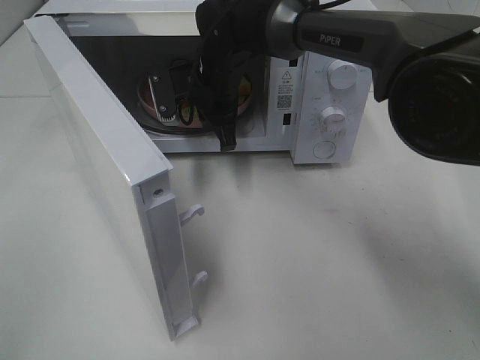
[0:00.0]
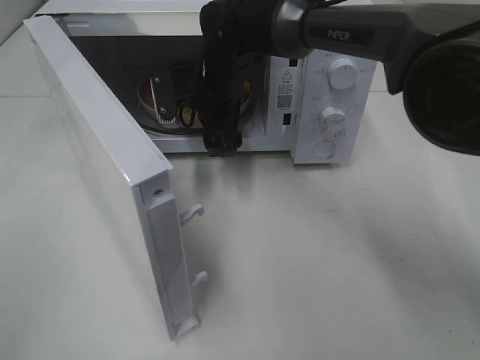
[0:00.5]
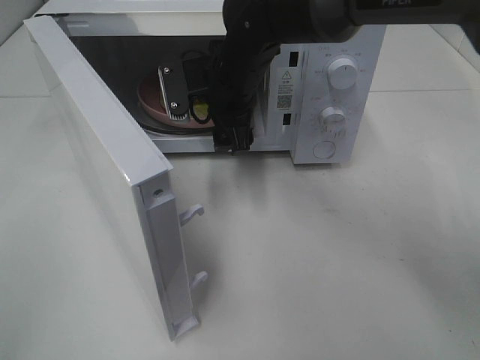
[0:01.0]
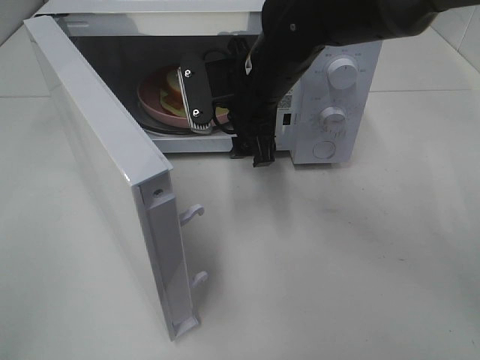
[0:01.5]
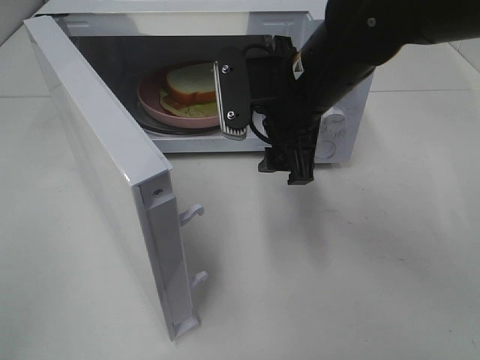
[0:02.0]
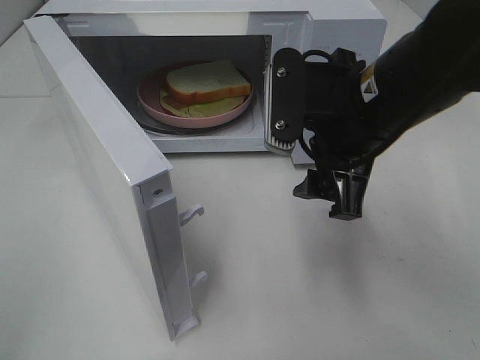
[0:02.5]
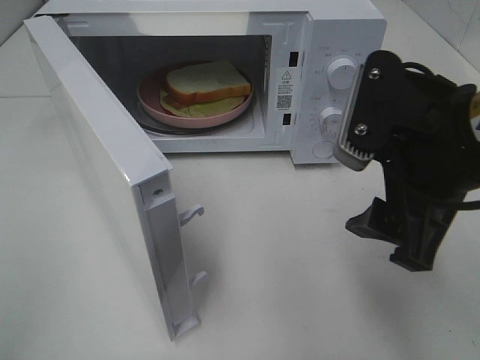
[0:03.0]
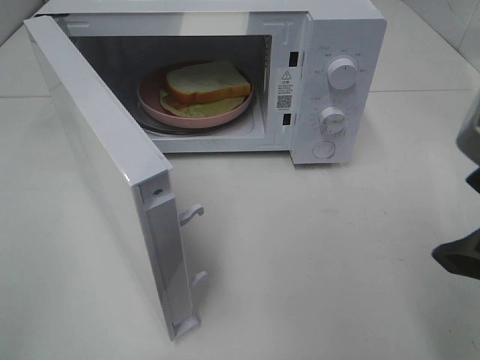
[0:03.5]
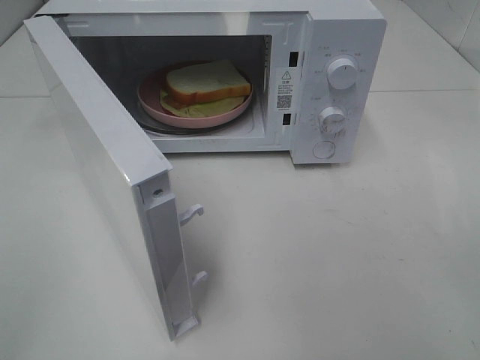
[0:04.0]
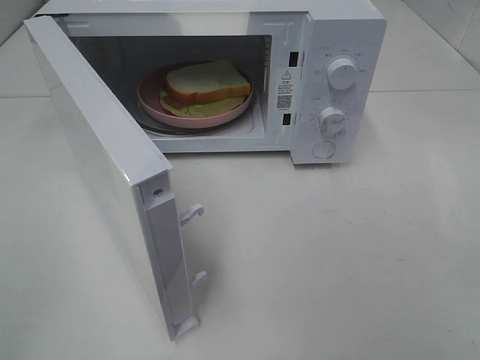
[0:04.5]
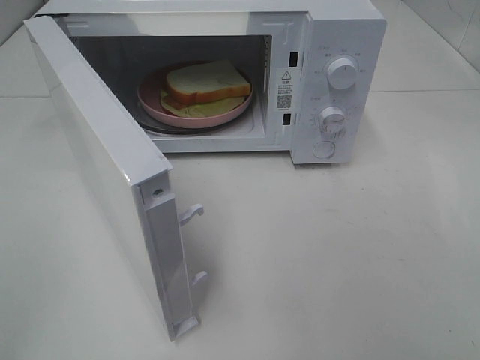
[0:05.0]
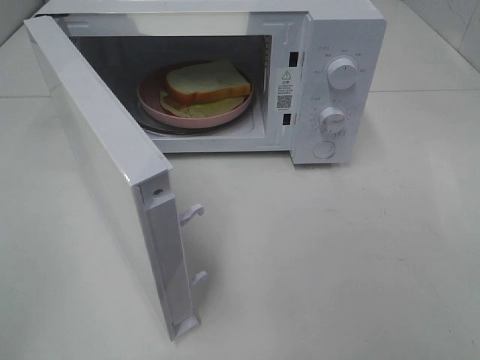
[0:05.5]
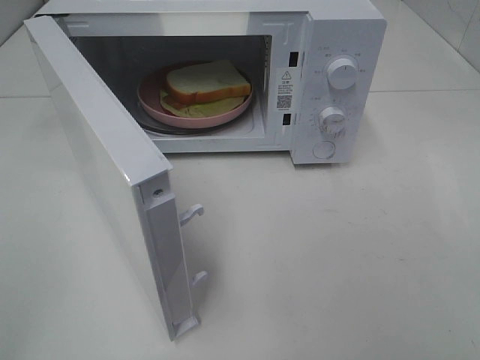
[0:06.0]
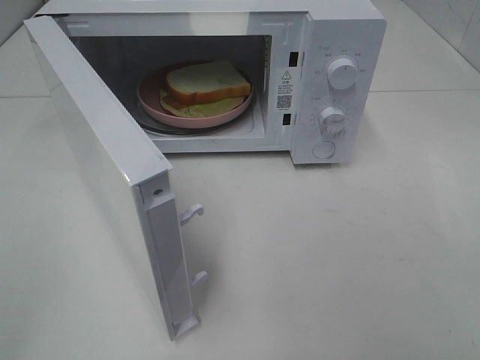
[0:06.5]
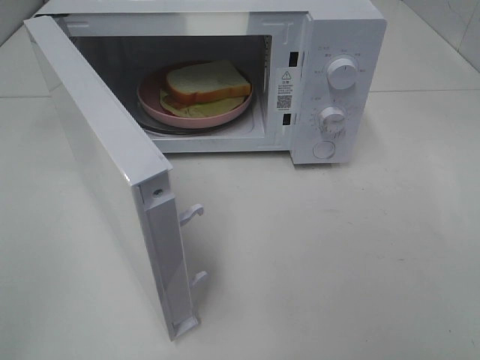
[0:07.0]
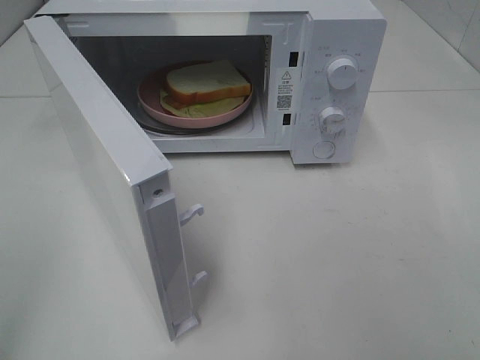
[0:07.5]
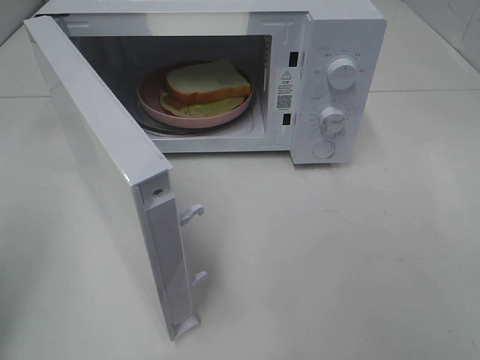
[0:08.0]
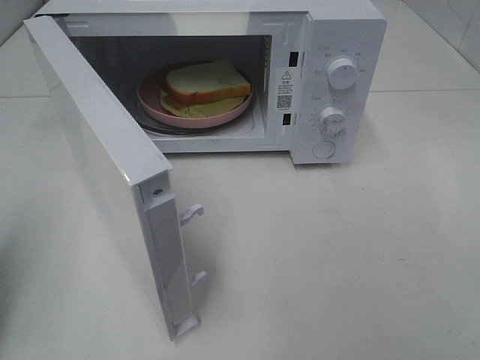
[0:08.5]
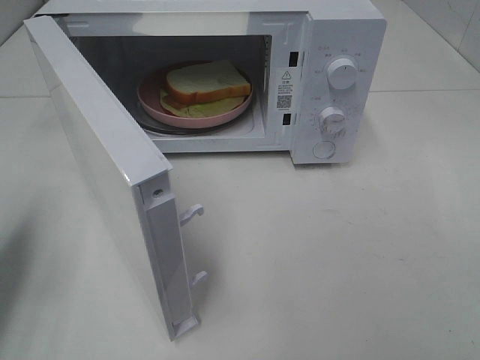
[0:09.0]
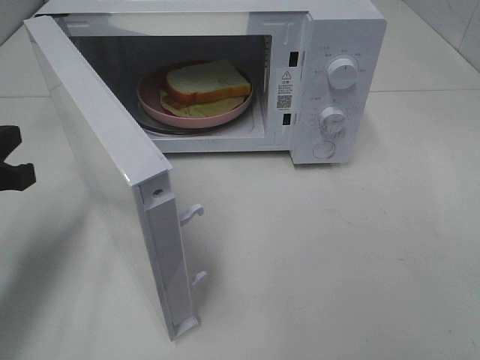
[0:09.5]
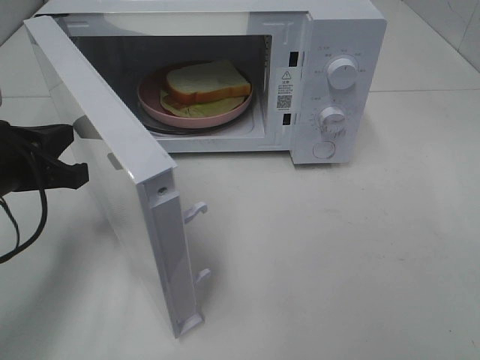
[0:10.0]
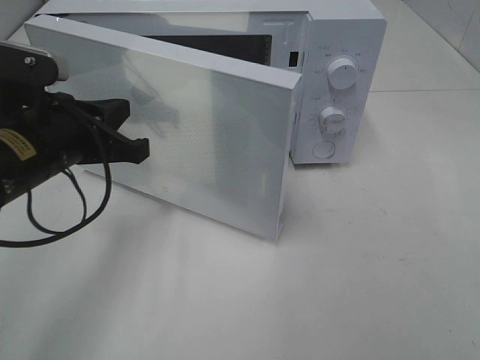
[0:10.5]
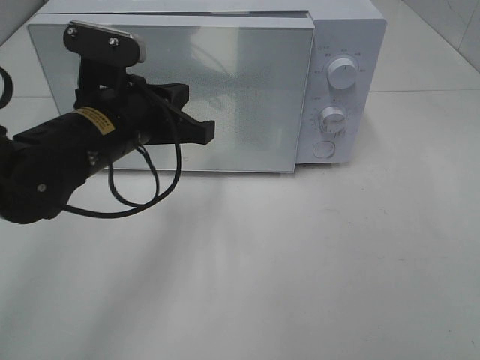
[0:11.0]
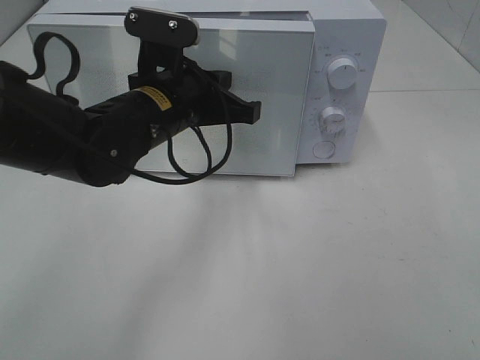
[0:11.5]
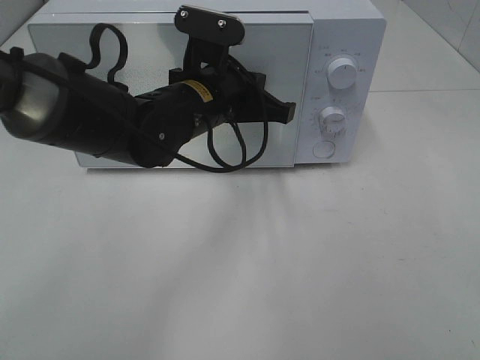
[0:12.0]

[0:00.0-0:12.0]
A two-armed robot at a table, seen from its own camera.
Task of the whole recording: Heat Sandwich.
0:00.0 to 0:02.0: The right gripper travels backward, to the right and upward by about 20 cm, and opens its fingers.
0:02.0 to 0:04.0: The right gripper is displaced backward and to the right by approximately 30 cm.
0:04.0 to 0:06.0: The right gripper goes approximately 10 cm backward.
0:08.0 to 0:10.0: The left gripper heads forward, downward and to the right, covering about 20 cm.
0:10.0 to 0:12.0: The left gripper goes approximately 25 cm to the right and forward.

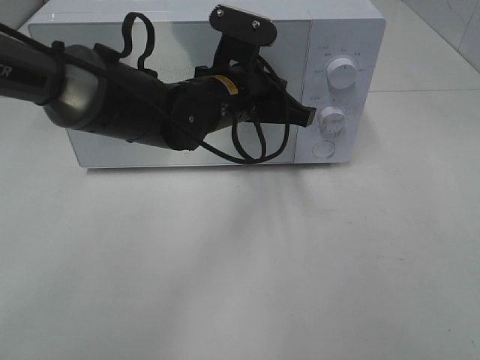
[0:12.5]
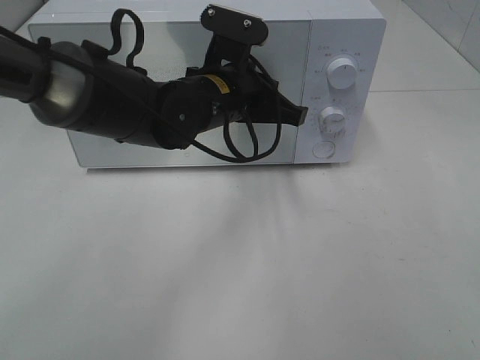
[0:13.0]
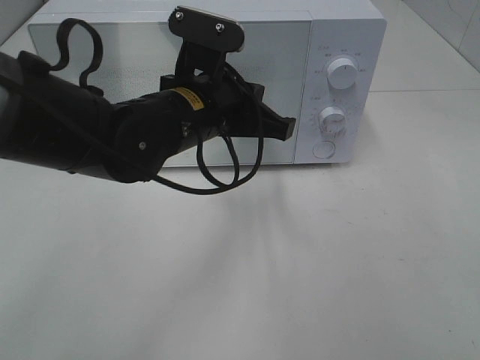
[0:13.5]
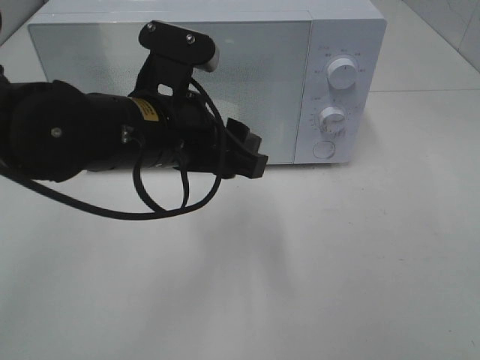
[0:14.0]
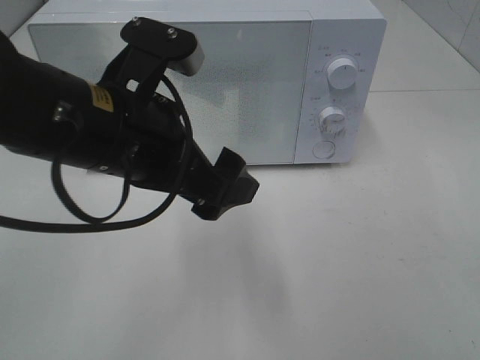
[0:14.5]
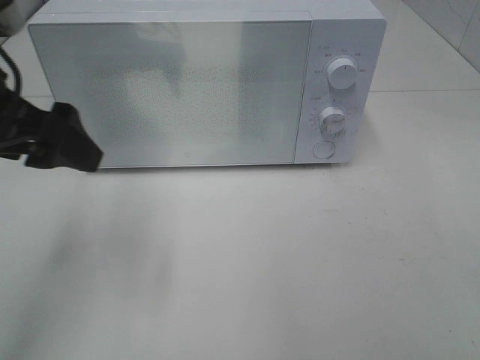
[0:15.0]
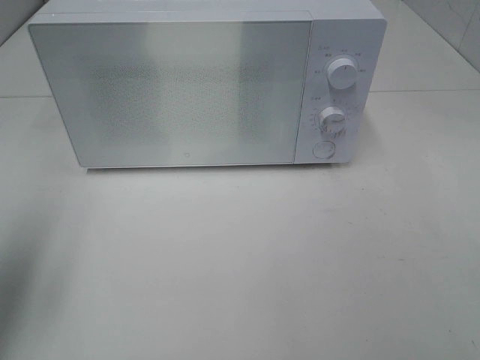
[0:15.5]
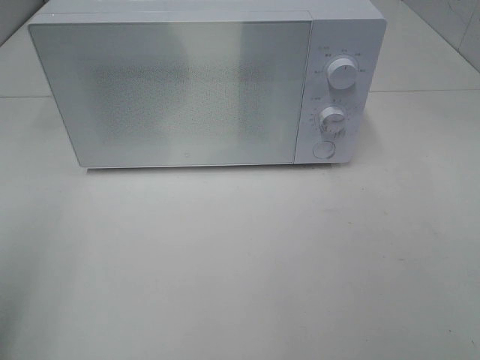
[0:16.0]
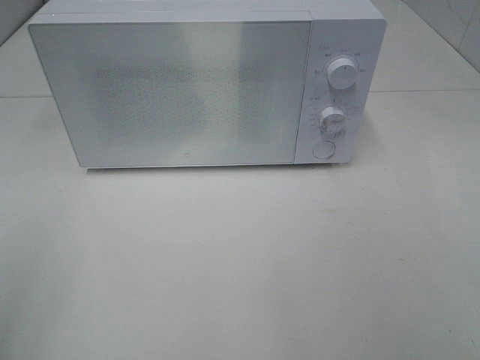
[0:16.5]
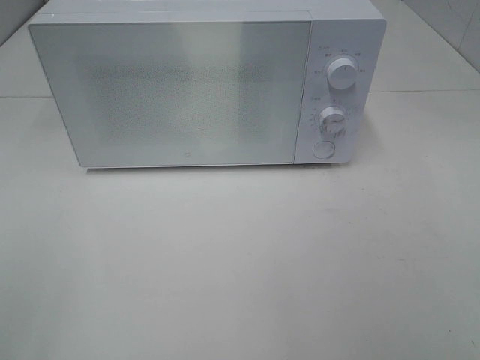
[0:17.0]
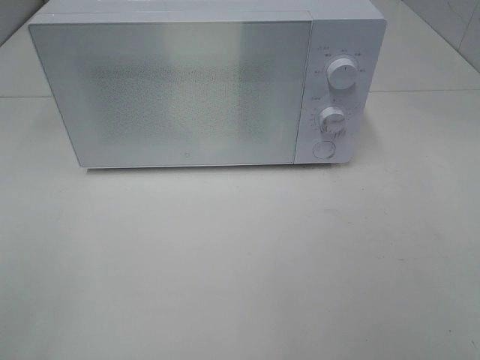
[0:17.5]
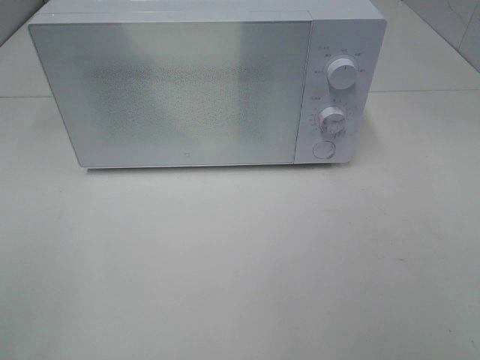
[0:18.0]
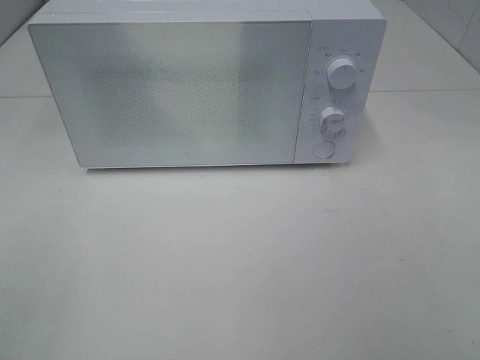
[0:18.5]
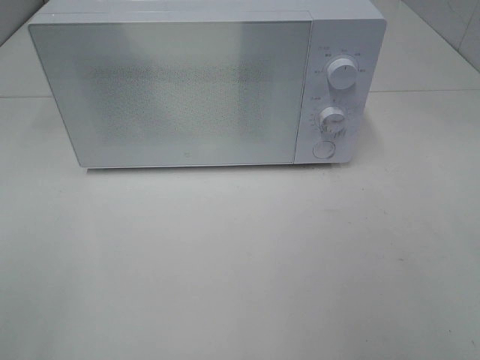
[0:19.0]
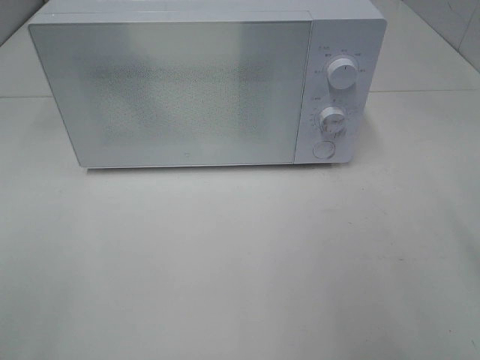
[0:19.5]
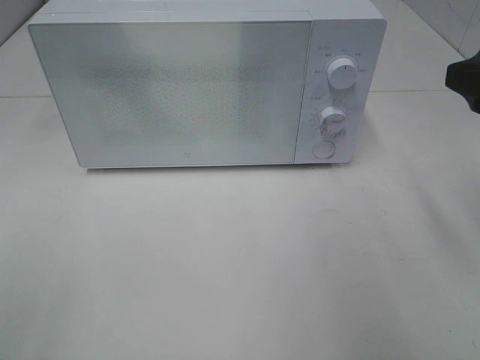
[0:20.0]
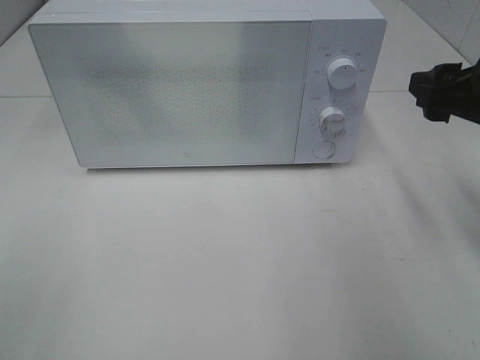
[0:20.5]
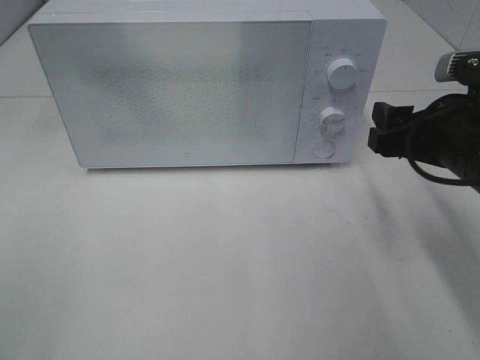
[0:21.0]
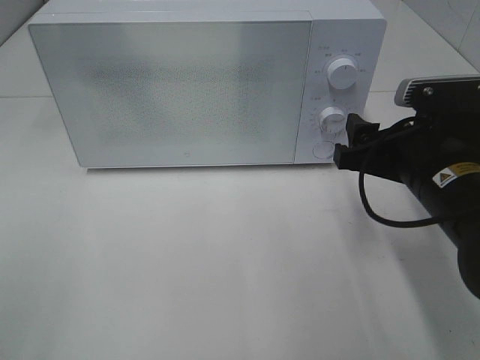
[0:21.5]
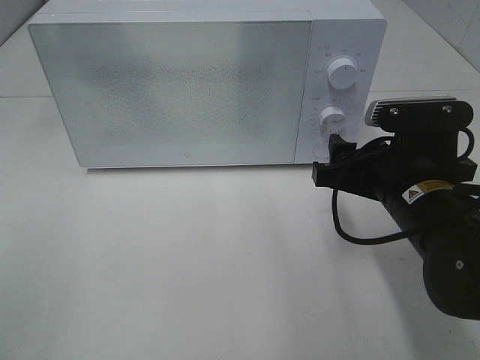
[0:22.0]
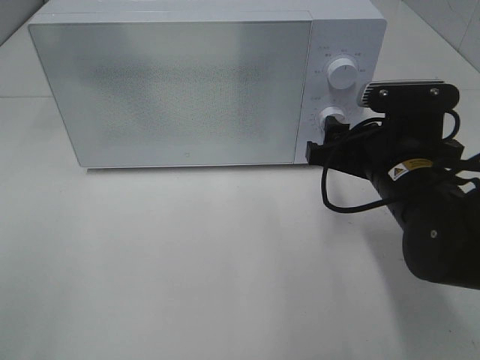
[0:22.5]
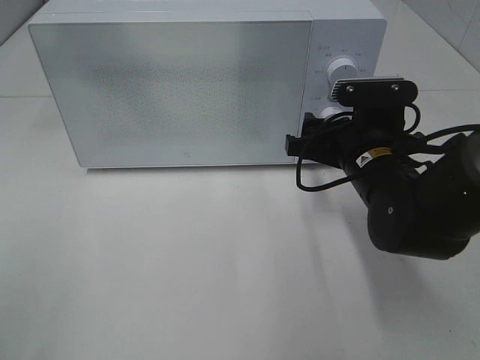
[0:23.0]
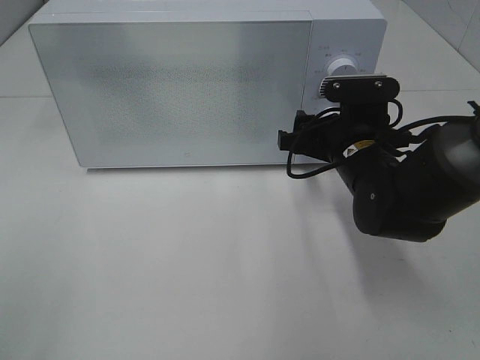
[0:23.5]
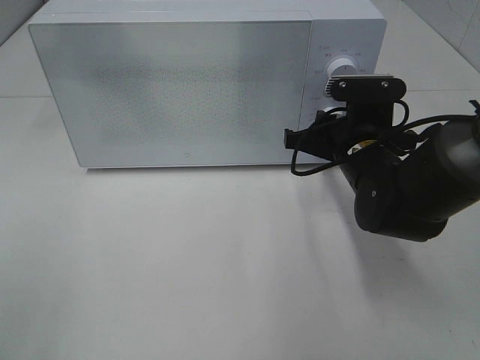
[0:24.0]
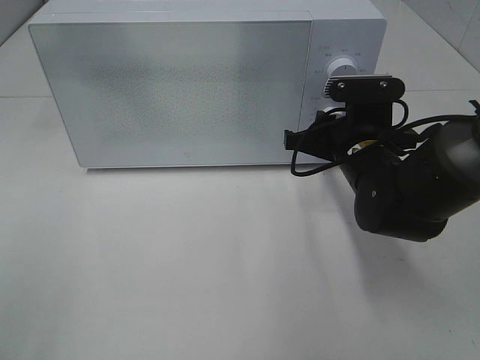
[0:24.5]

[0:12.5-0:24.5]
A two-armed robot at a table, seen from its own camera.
Task of the whole recording: Heat Sandwich.
0:12.5 to 0:14.5: The left gripper is displaced backward, to the left and upward by about 20 cm, and opens up.
0:14.5 to 0:16.5: The left gripper goes about 30 cm to the left and backward.
0:18.5 to 0:20.5: The right gripper travels forward by approximately 25 cm.
0:20.5 to 0:22.5: The right gripper is displaced to the left and downward by roughly 15 cm.
0:22.5 to 0:24.5: The right gripper travels forward by about 5 cm, and closes its fingers.

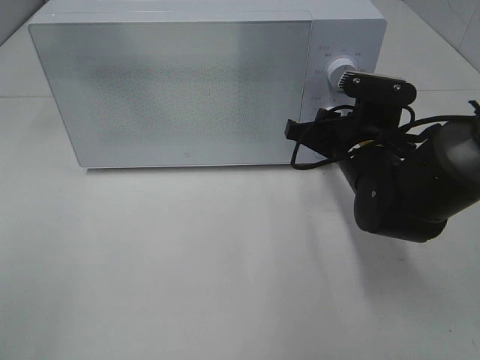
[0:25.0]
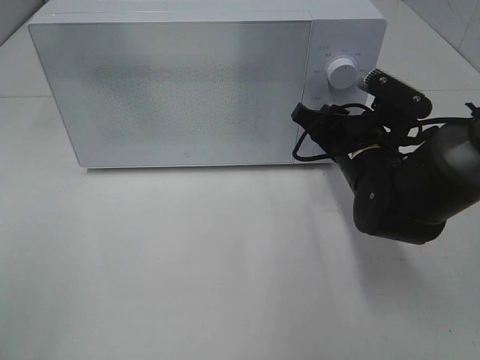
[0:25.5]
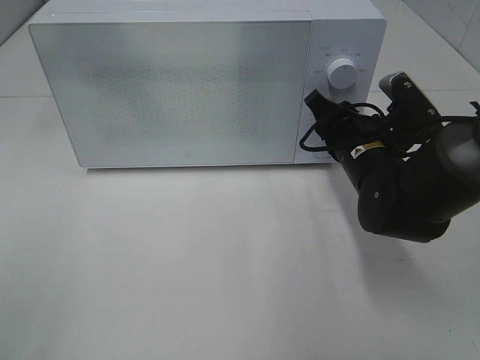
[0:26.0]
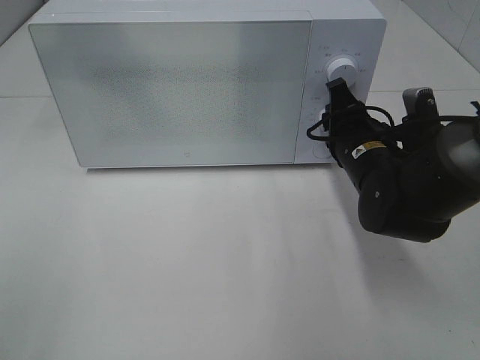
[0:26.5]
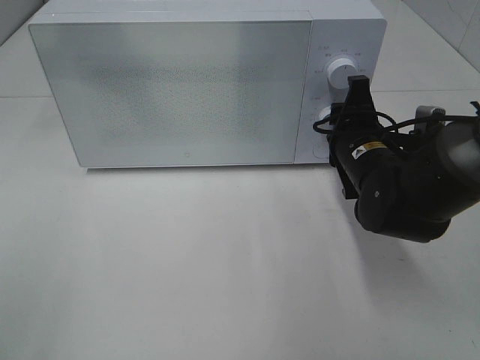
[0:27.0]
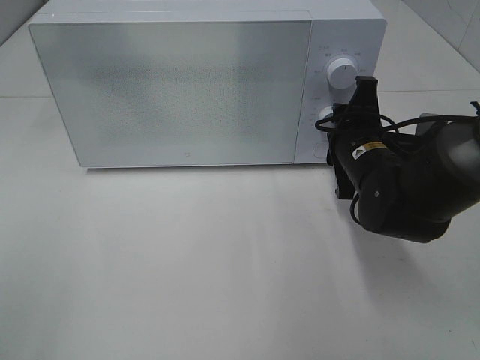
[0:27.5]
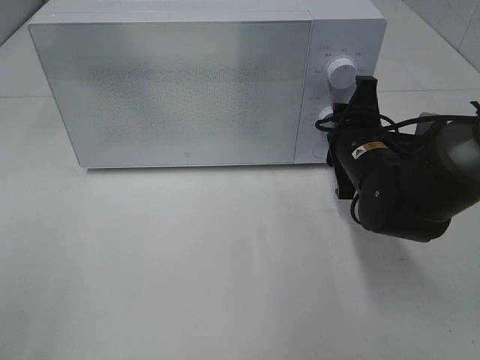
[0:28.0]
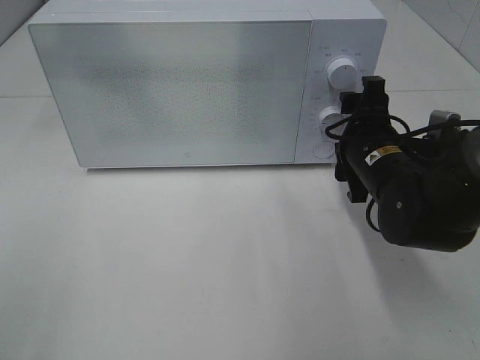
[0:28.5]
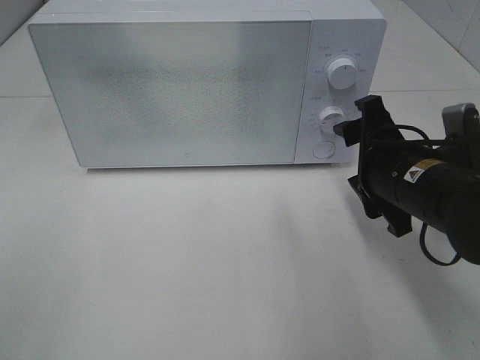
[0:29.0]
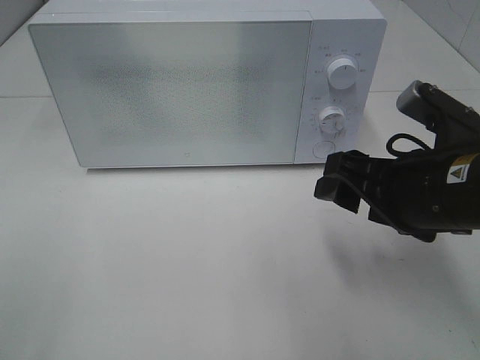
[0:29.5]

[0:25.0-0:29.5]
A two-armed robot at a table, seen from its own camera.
Task of the whole recording: Heat Sandwich.
Step, 0:25.0 to 0:28.5: Right hand: twist timer button.
0:27.0 to 0:29.5: The right gripper heads backward and upward, covering approximately 15 cm, and opens.
